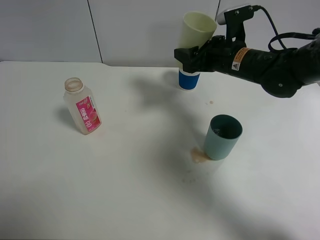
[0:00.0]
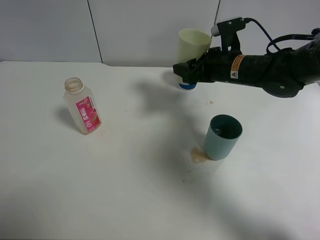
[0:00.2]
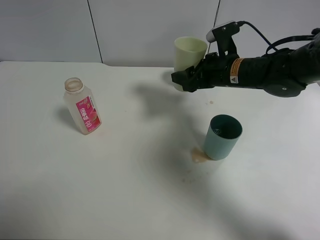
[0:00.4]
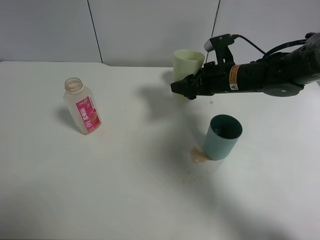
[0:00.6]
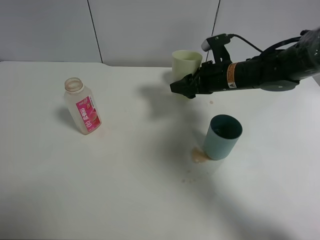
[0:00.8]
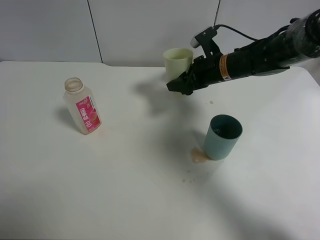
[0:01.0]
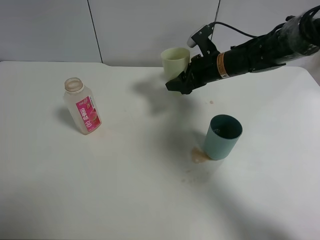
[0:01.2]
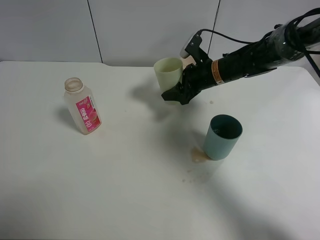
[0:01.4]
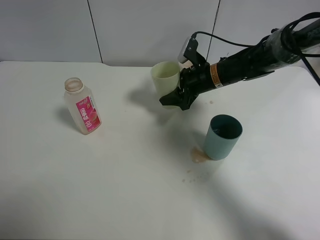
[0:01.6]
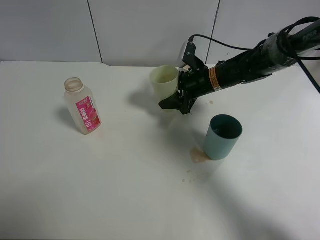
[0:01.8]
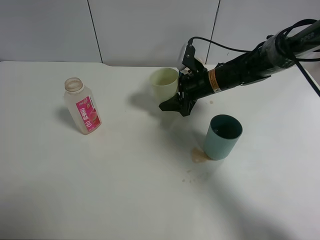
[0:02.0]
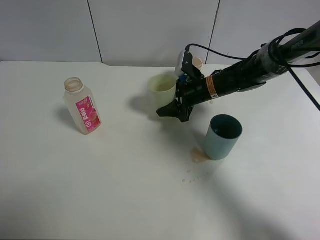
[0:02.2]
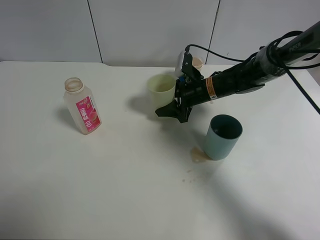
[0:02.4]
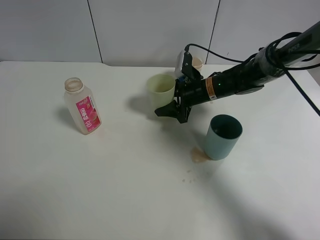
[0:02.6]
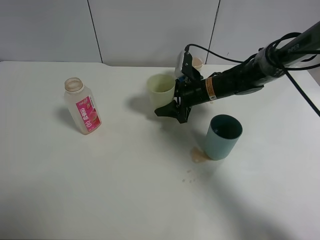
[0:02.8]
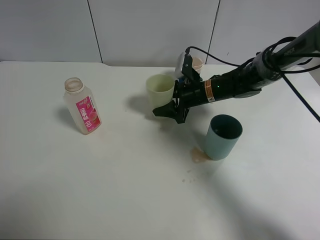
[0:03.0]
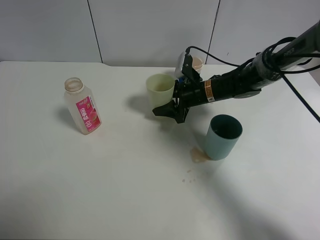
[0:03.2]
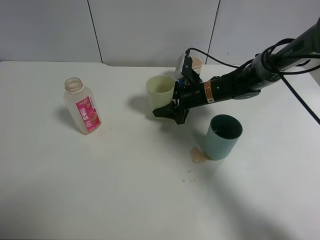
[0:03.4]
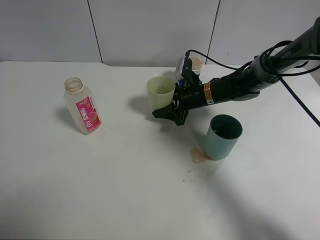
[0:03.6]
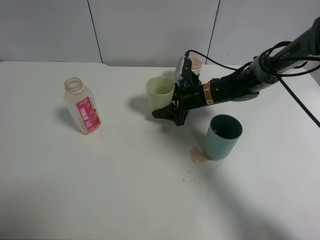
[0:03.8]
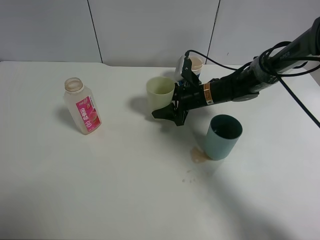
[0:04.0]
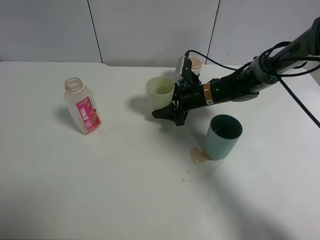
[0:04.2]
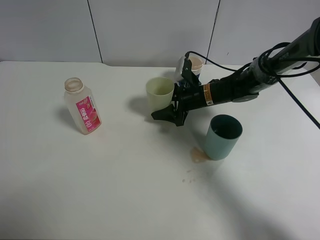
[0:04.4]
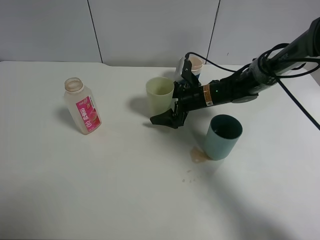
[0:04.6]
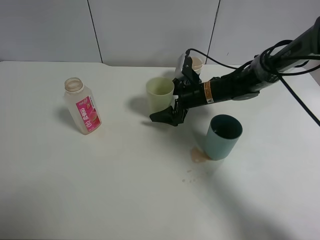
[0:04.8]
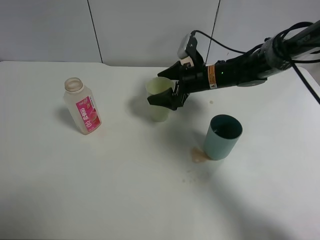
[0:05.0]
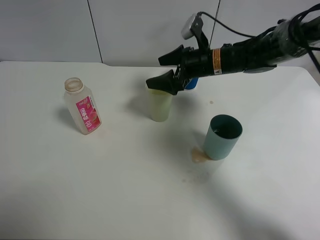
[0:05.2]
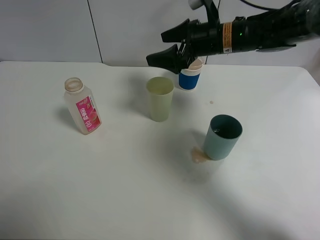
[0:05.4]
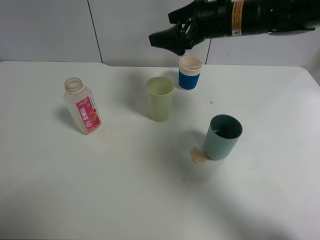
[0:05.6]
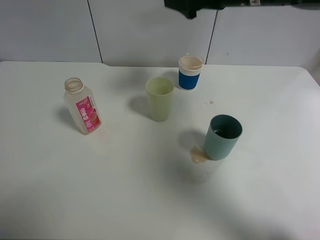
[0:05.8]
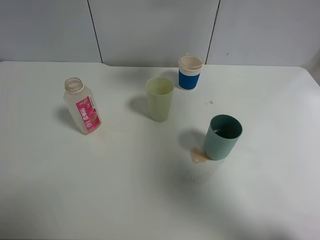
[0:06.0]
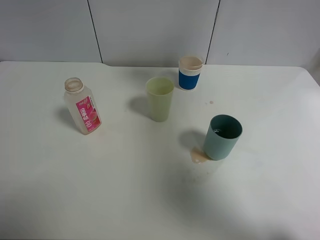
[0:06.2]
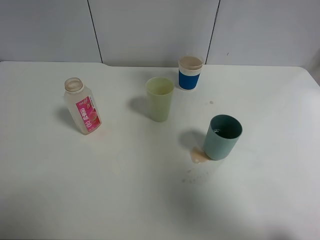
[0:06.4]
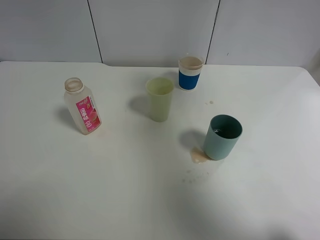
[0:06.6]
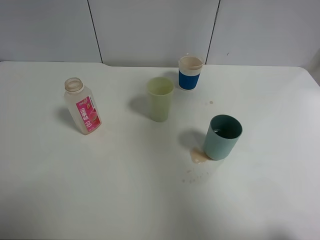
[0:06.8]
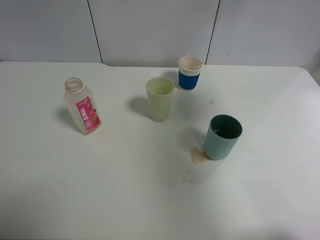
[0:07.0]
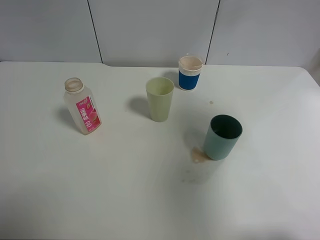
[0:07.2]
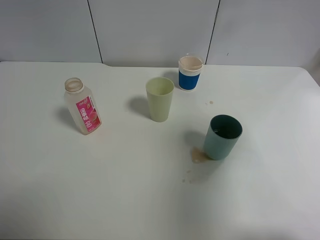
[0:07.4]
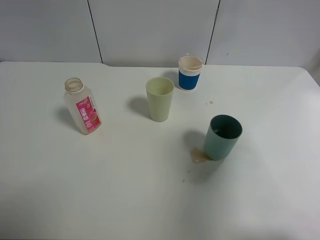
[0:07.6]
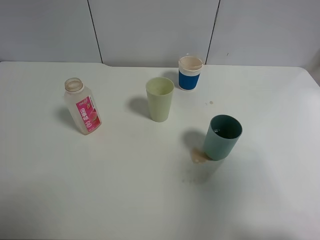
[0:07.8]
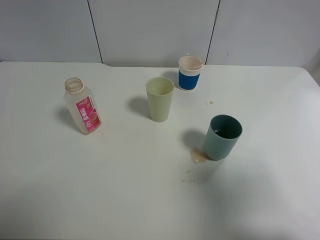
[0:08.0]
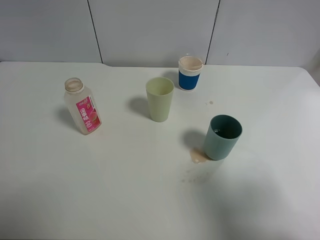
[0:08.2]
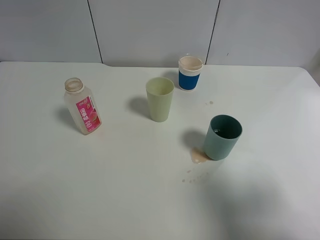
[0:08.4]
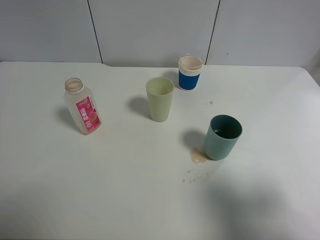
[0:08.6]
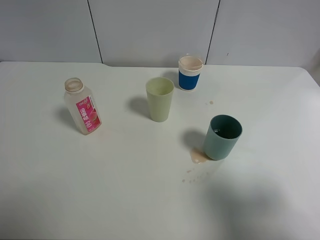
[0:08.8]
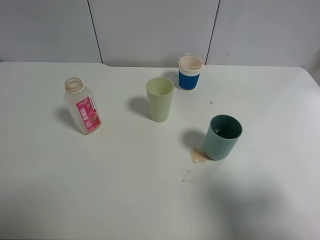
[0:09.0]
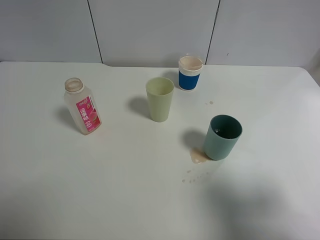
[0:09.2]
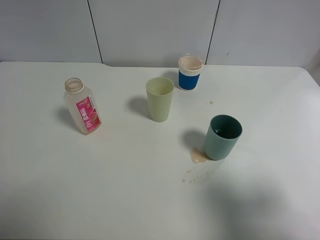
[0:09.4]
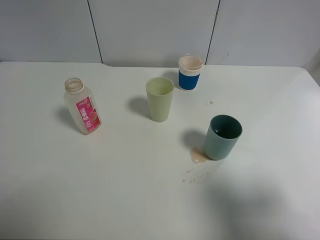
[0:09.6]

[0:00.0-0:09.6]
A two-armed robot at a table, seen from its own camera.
Task of the whole recording: use a clamp to hold the bottle of the drink, pour the beverage into a random cup, then clamp the cup containing the drink and pour the drink into another random cup.
Step, 0:00.0 to 0:05.0: Place the green plastic cup on the table with right gripper.
0:00.0 to 0:01.6: The right gripper moves downward, about 5 cm.
0:01.6 to 0:03.2: There are only small adjustments of the grippers.
0:03.2 to 0:04.8: The right gripper opens its fingers.
0:04.8 to 0:06.4: The right gripper is displaced upward by some 30 cm.
0:06.4 to 0:08.0: The right gripper moves backward, approximately 30 cm.
0:08.0 to 0:09.6: The right gripper heads downward, covering about 5 cm.
